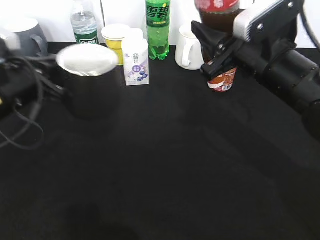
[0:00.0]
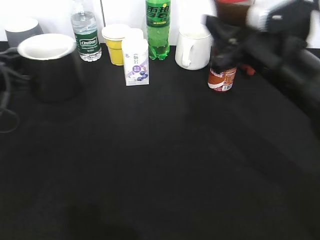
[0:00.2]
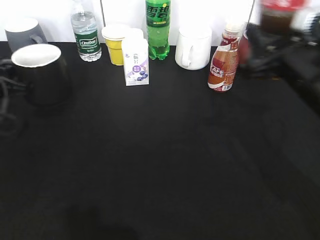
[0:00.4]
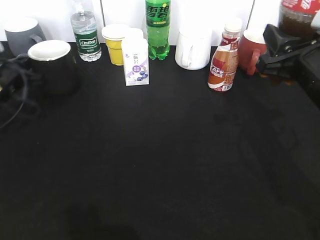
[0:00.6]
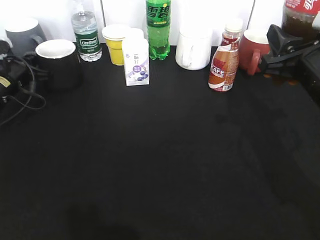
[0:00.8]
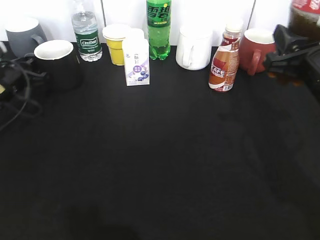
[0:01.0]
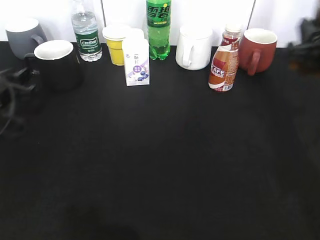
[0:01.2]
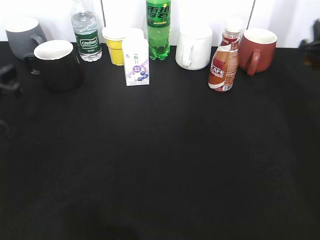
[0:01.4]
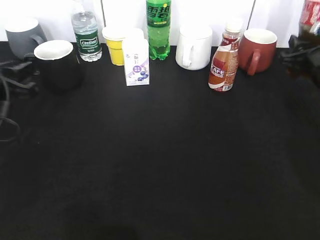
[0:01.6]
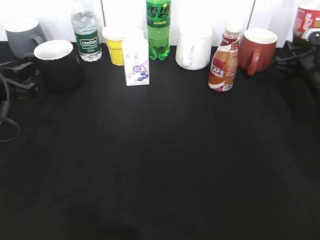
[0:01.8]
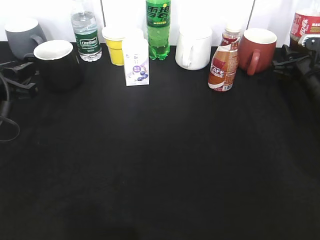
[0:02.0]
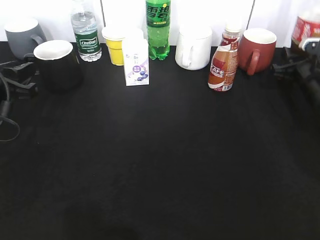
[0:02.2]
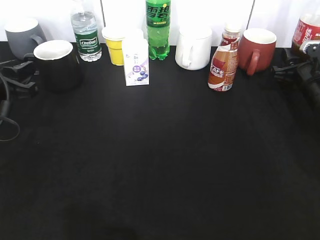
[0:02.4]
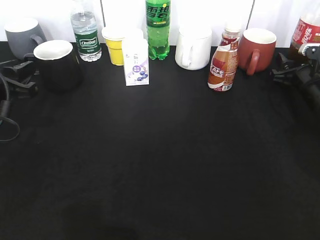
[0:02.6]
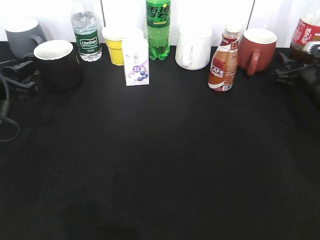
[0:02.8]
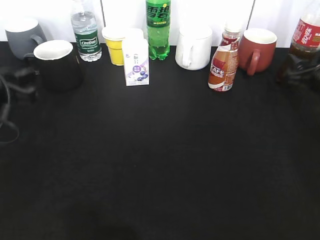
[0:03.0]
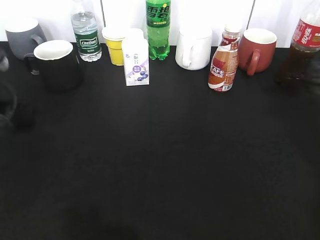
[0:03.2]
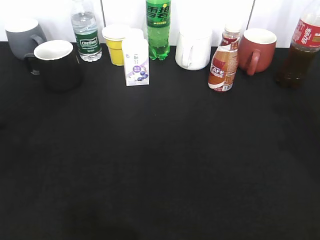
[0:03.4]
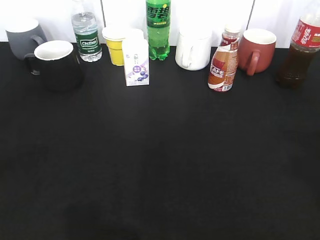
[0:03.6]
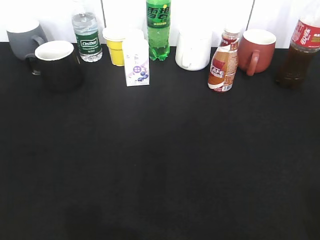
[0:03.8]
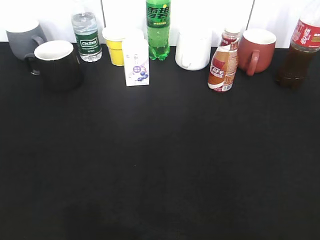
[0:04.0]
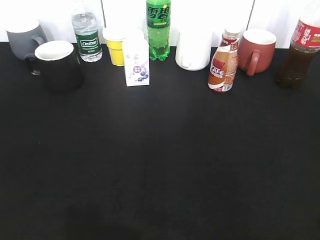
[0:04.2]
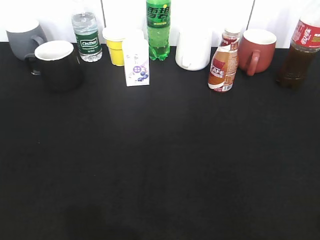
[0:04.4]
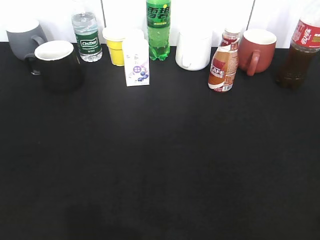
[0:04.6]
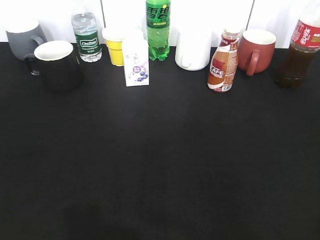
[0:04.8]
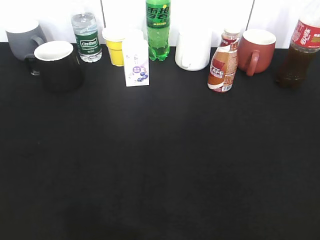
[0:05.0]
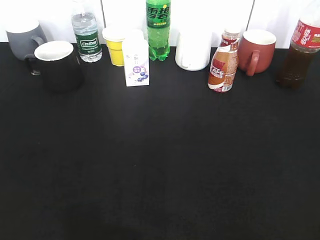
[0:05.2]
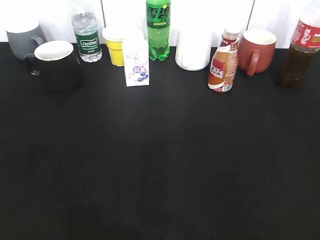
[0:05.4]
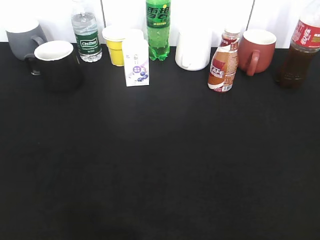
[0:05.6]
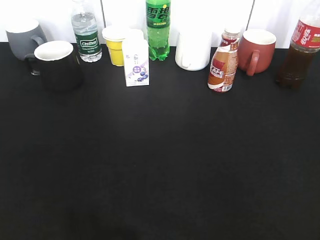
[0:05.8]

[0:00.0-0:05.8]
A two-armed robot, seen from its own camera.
Step, 0:00.0 to 0:01.2: Place the black cup on the table with left gripper.
Step, 0:01.6 to 0:03.2: Place the cola bottle on the table with right gripper.
0:00.0 to 0:01.4: The left gripper heads to the left, covering roughly 10 cm, reaches approximately 15 cm forward, then returns, and opens; the right gripper goes approximately 15 cm to the right.
0:01.4 to 0:02.8: The right gripper goes approximately 10 cm downward, and opens its fingers.
0:02.8 to 0:04.4: The two grippers go some 35 cm backward and upward.

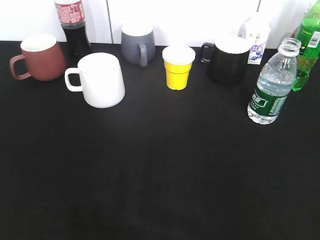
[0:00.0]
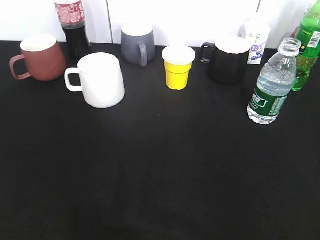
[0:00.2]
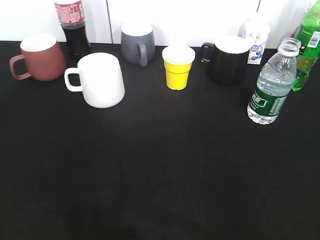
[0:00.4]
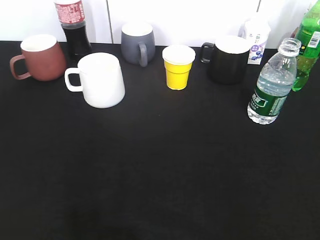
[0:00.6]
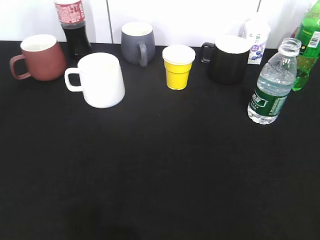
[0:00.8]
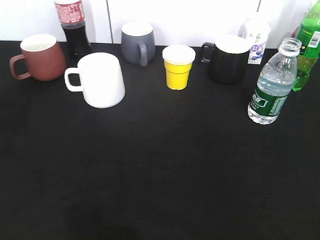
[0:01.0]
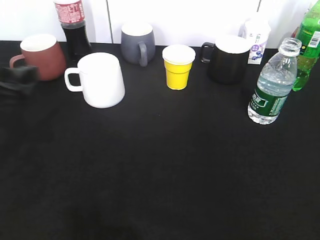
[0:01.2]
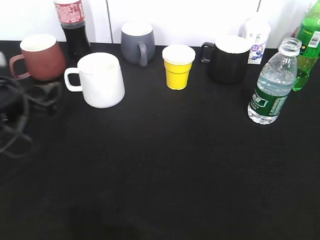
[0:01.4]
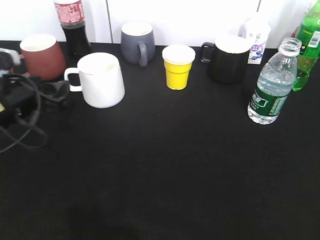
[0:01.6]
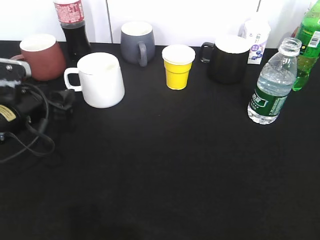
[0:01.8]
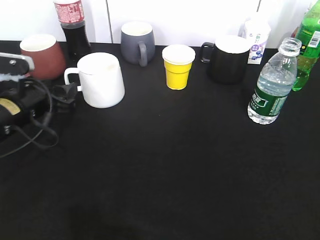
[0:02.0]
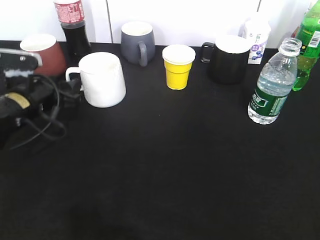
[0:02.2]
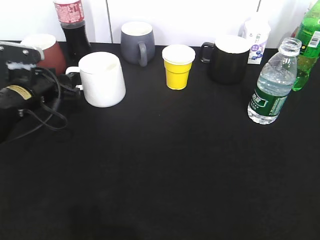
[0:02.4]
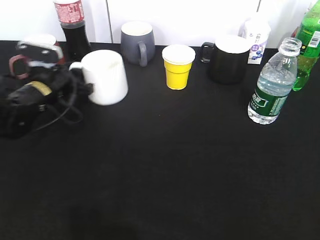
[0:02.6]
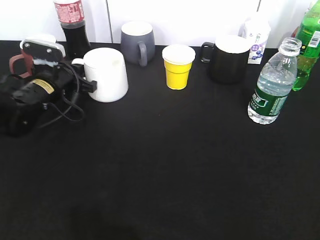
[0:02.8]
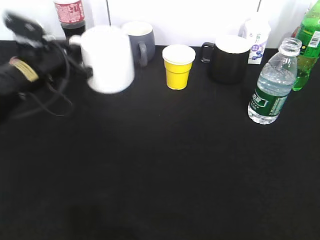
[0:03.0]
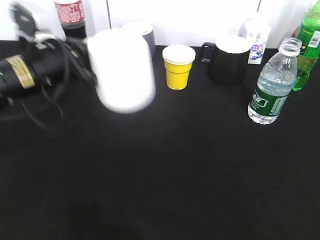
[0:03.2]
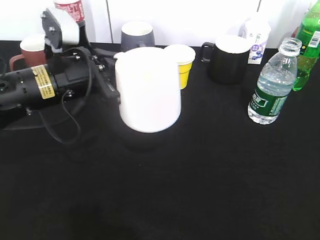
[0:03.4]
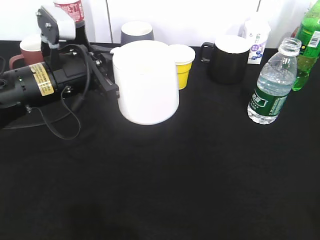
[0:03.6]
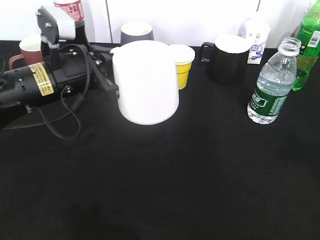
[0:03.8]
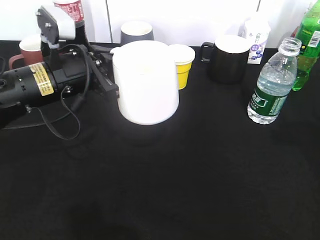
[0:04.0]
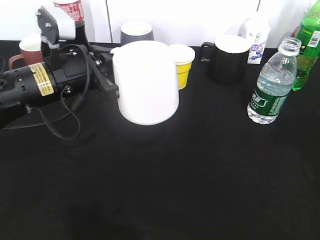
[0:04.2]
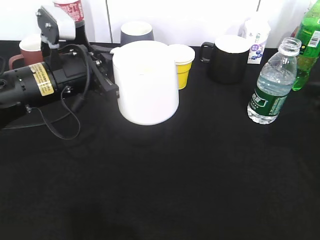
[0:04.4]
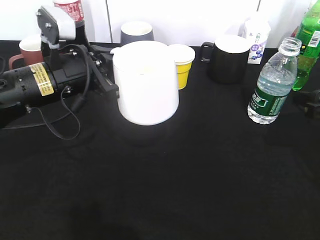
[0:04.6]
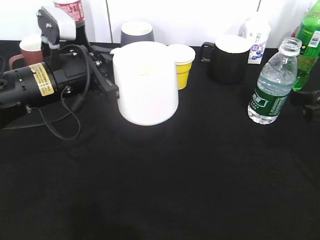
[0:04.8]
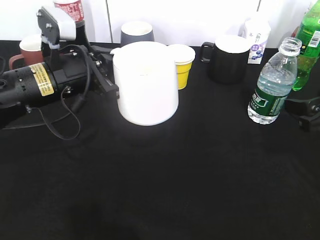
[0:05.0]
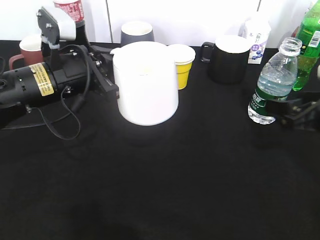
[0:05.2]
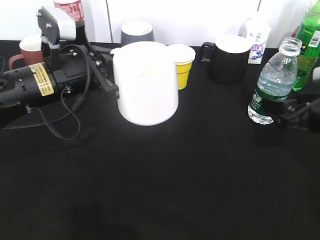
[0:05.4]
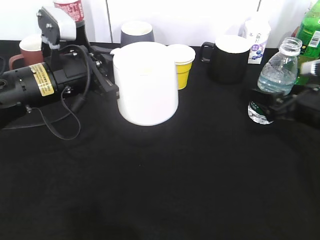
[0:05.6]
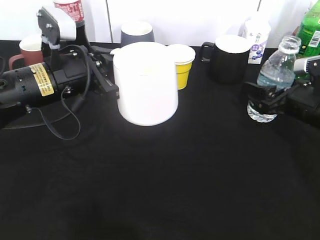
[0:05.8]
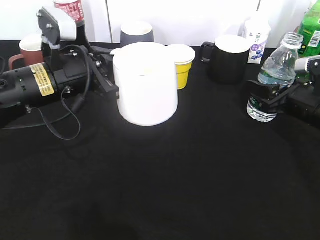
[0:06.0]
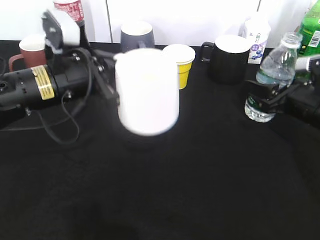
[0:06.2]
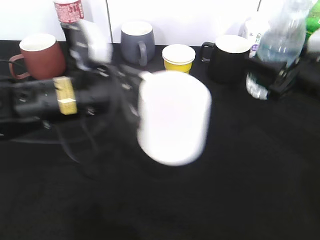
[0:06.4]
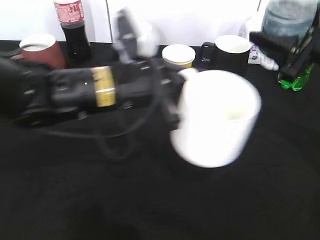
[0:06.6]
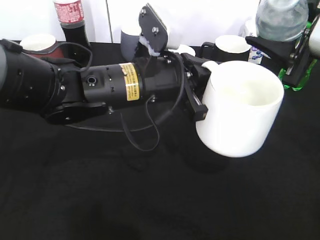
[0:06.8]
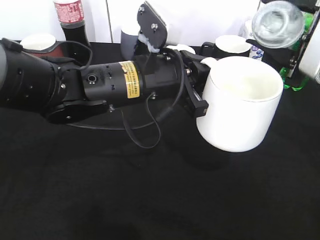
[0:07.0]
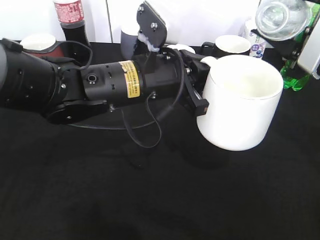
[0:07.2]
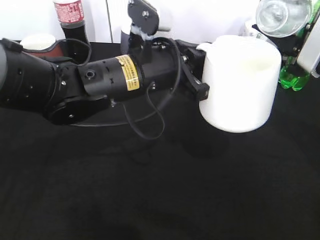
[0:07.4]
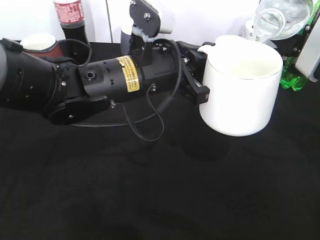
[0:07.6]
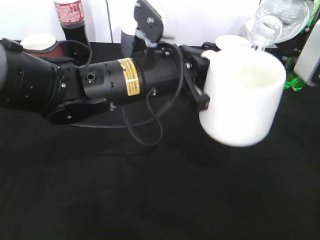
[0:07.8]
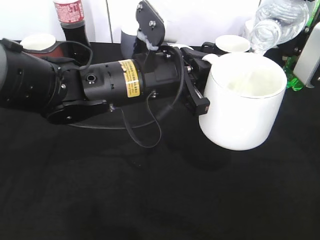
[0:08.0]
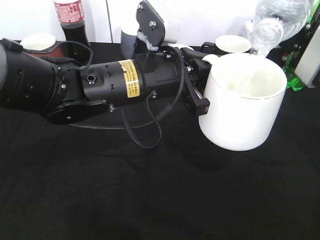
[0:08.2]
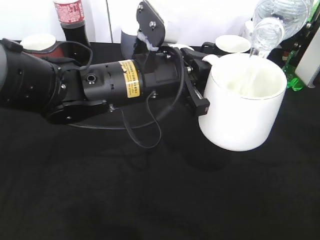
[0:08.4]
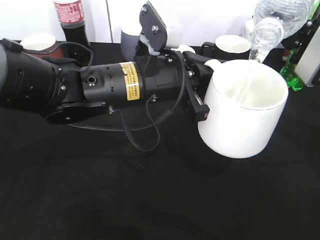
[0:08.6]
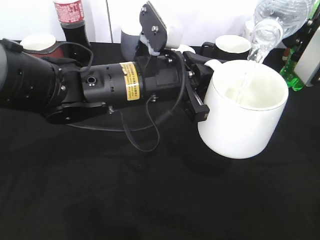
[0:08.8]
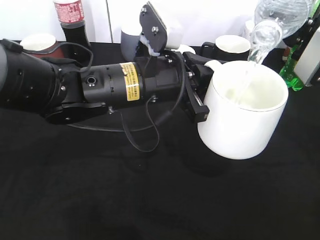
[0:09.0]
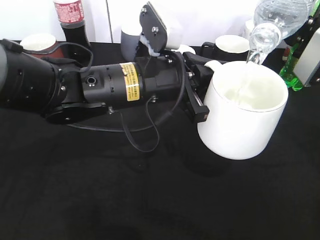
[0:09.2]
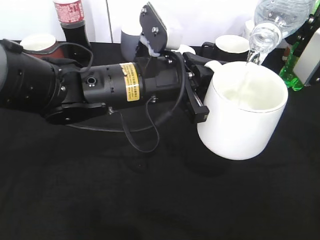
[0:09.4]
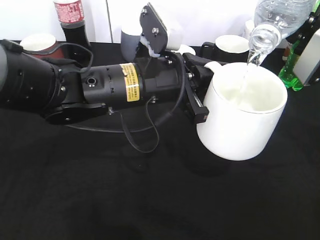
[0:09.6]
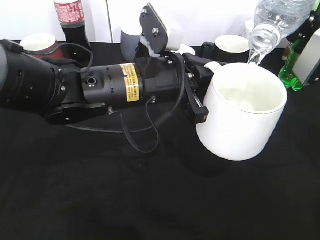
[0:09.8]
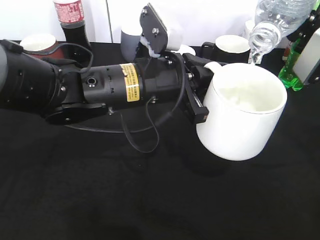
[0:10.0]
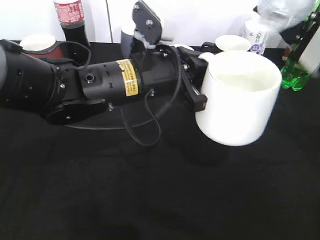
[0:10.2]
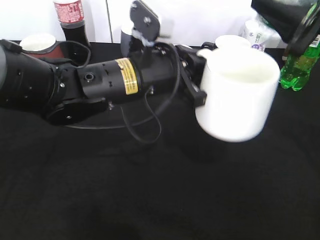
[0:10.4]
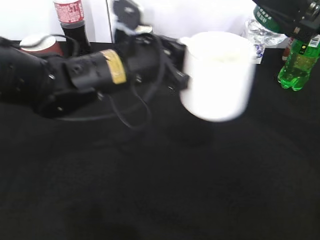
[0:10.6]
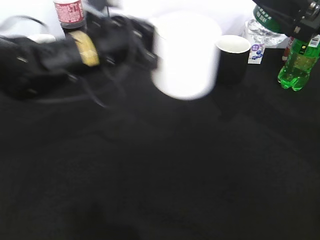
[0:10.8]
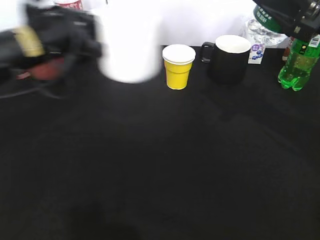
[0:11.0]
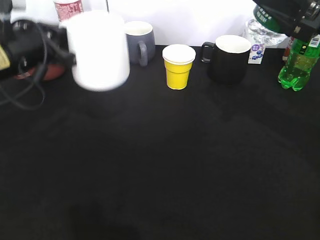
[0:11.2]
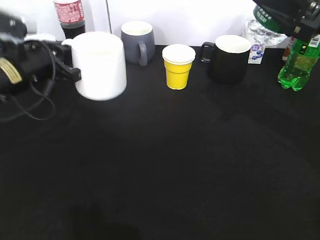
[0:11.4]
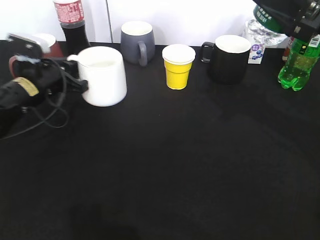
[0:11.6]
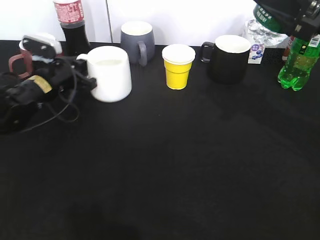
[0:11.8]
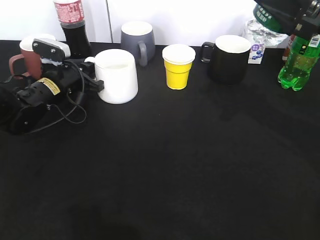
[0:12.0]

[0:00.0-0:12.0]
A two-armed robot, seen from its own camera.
Step, 0:00.0 to 0:02.6: Grasp the white cup with left gripper.
Step, 0:02.8 to 0:03.4: Lift the white cup with left gripper.
Step, 0:03.6 to 0:05.8: Grasp the bottle with water with right gripper.
Step, 0:06.0 to 0:10.6: Pour the water from bottle to cup with right gripper.
0:00.0 to 0:01.6: The left gripper goes about 30 cm forward and downward, and opens.
0:01.6 to 0:03.0: The left gripper moves forward, some 5 cm, and closes up.
0:03.0 to 0:04.4: The right gripper moves forward, approximately 25 cm, while the left gripper is displaced to the right by about 5 cm.
0:04.4 to 0:06.0: The right gripper goes about 10 cm forward and downward, and closes.
0:06.0 to 0:07.6: The left gripper is displaced to the right by roughly 10 cm. Meanwhile the right gripper is displaced upward by roughly 15 cm.
0:07.6 to 0:09.0: The grippers stay close to where they were, moving slightly.
0:10.4 to 0:12.0: The left gripper travels to the left, forward and downward by some 25 cm.

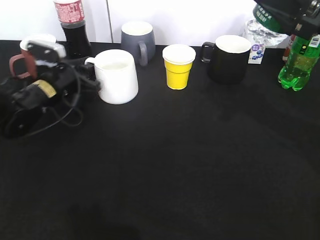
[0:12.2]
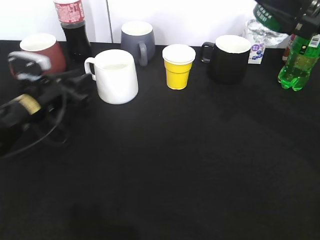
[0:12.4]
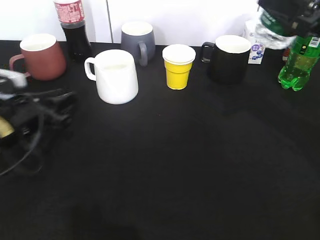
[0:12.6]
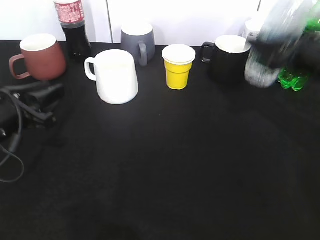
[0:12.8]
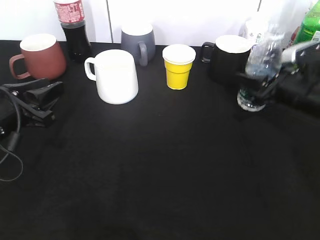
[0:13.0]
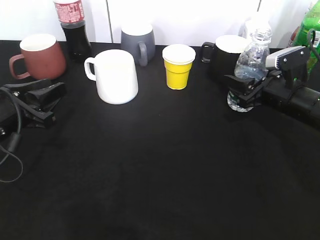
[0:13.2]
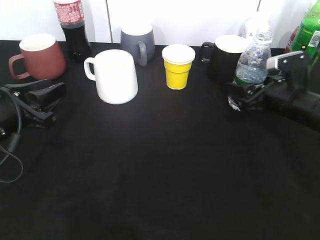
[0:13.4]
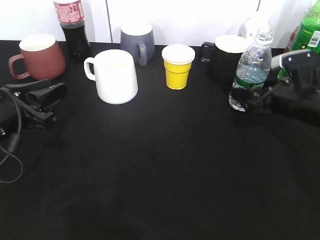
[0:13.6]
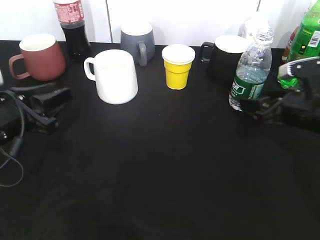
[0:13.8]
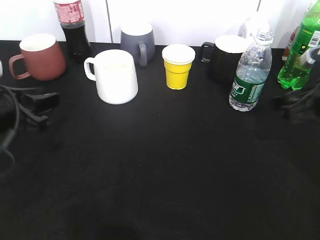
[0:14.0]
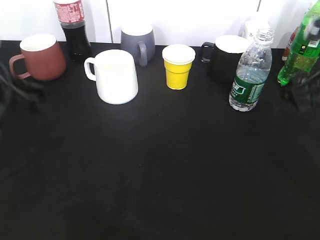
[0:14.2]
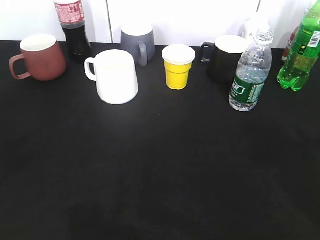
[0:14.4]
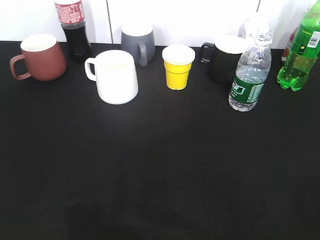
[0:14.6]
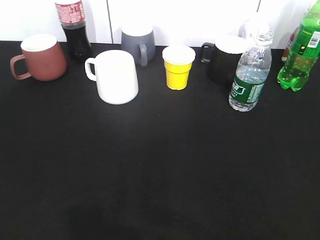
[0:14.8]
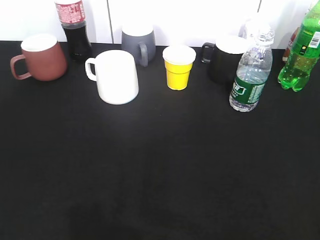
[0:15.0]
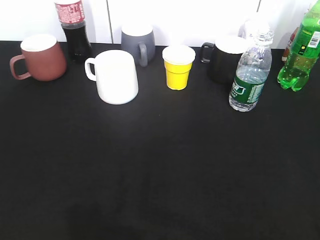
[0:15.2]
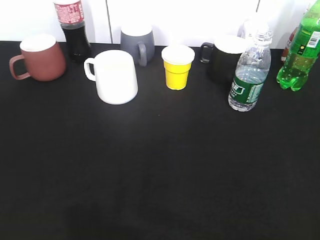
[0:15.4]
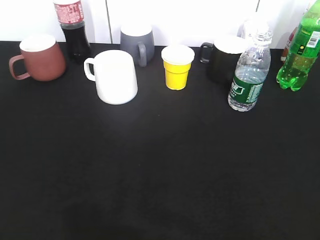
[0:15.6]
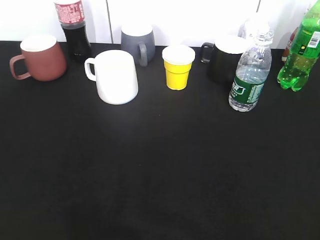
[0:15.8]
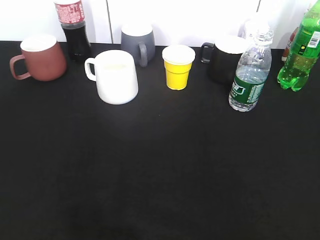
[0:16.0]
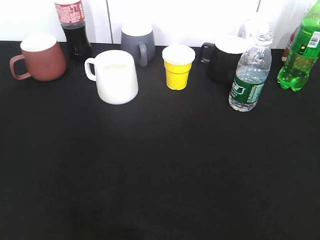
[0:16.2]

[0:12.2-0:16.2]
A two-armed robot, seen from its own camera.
Step, 0:12.6 to 0:13.6: Place the water bottle on the table with right gripper.
0:12.2 to 0:13.6: The left gripper shifts some 15 cm backward; the right gripper moves downward, some 15 cm, and opens up.
0:13.6 to 0:14.8: The two grippers go about 30 cm backward and upward.
